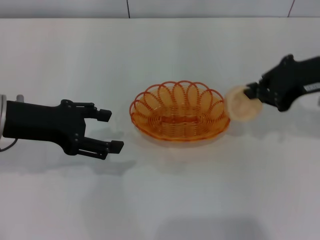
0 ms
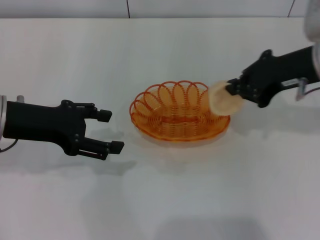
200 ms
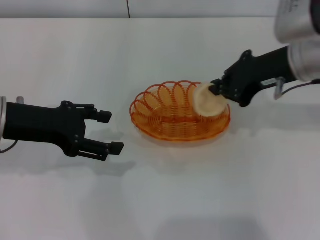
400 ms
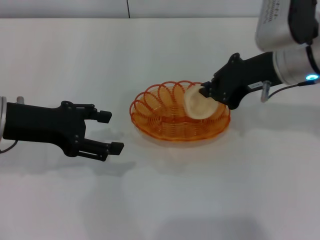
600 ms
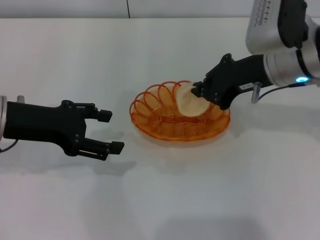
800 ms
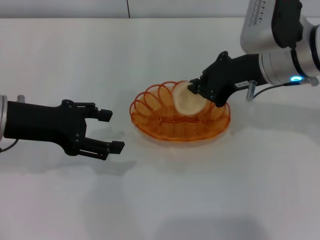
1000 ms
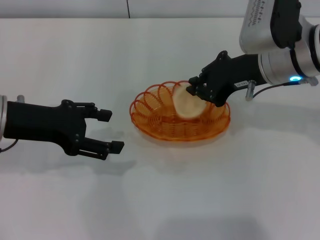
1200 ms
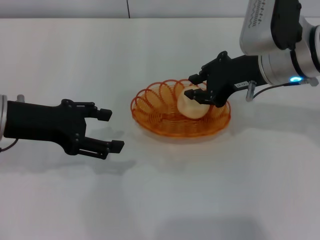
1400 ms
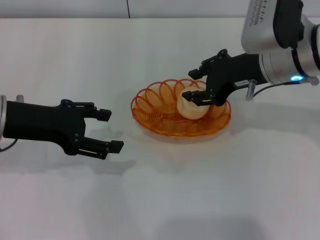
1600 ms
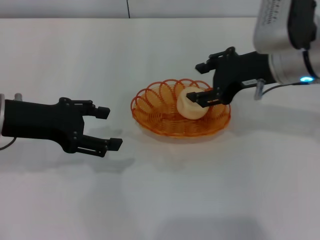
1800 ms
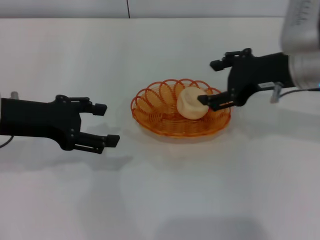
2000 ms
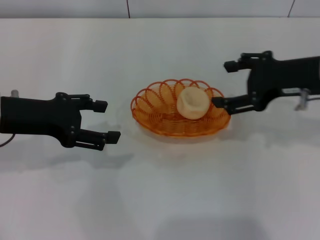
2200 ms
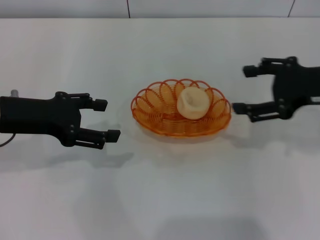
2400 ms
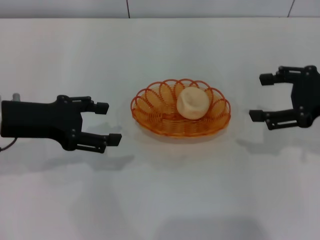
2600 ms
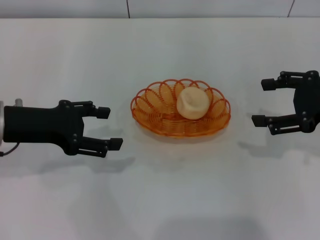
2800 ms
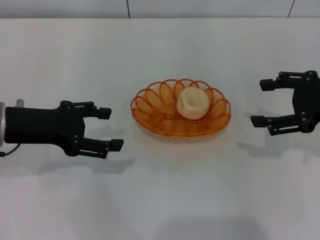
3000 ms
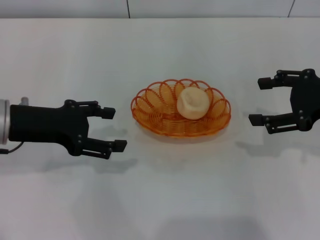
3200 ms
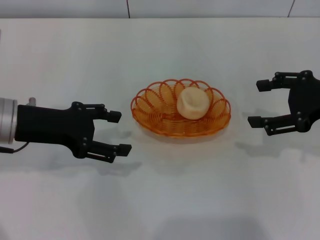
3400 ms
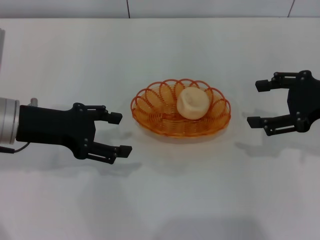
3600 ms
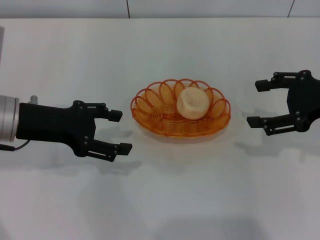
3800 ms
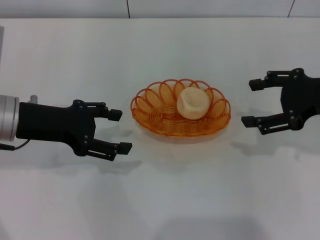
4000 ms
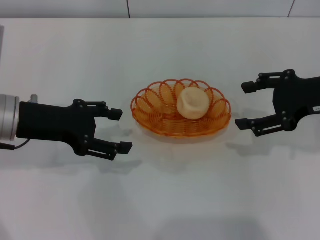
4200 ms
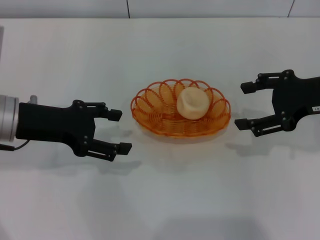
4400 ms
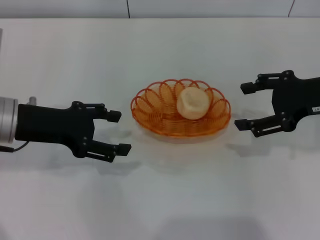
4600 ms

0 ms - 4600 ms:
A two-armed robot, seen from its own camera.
Step, 400 ms - 2000 ms: Place the egg yolk pastry into the basket with the right gripper.
0 ms - 1600 ms: The right gripper moves to the left, about 10 cm.
1600 ms - 3000 ms: The right gripper moves to the right and backward, roughly 15 cm, and opens.
3000 ms - 4600 ms: The grippers move only a little.

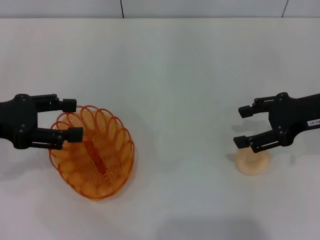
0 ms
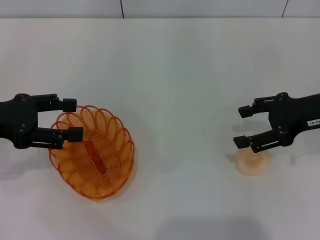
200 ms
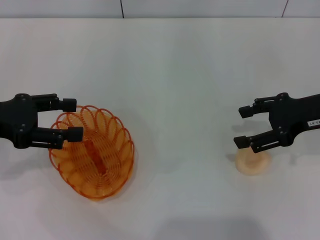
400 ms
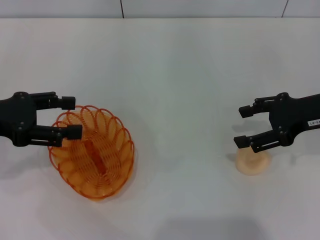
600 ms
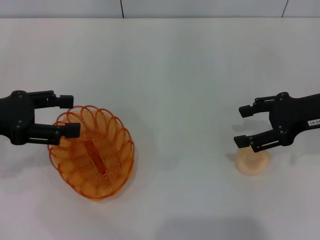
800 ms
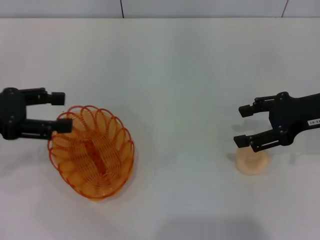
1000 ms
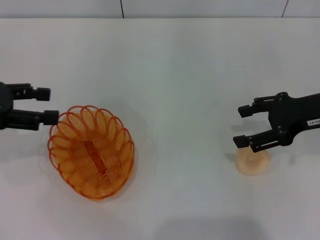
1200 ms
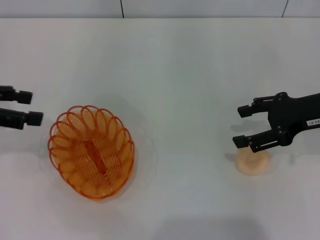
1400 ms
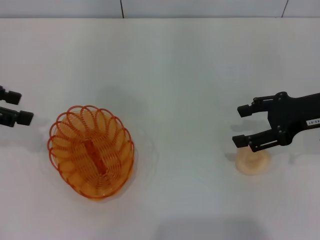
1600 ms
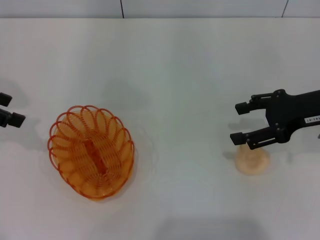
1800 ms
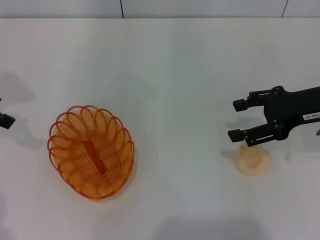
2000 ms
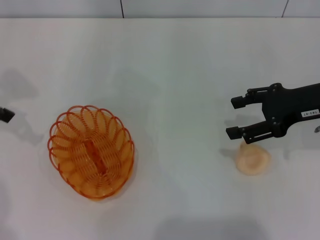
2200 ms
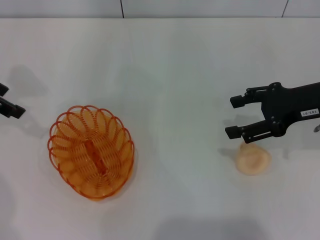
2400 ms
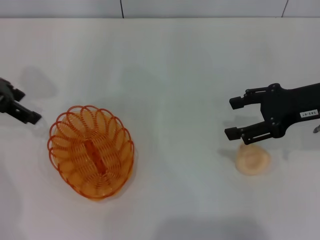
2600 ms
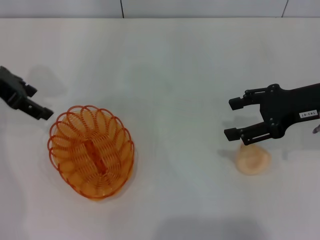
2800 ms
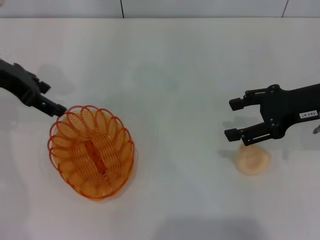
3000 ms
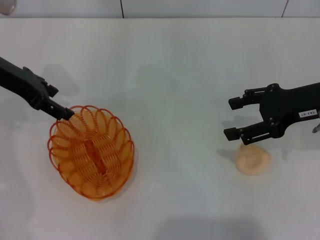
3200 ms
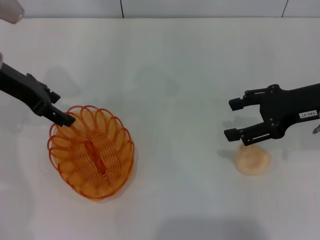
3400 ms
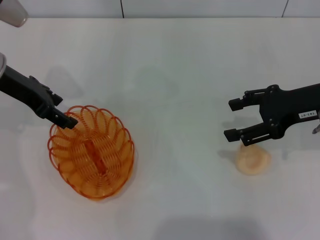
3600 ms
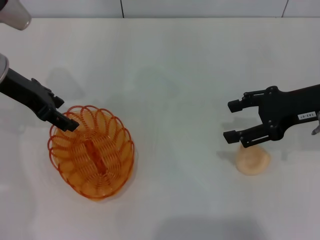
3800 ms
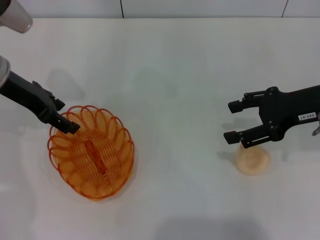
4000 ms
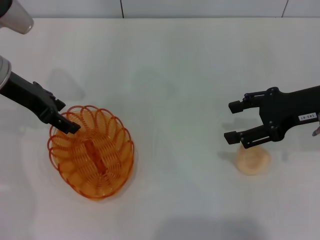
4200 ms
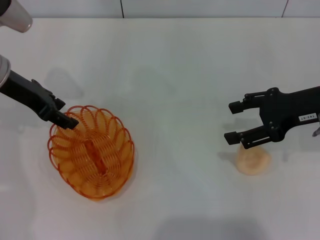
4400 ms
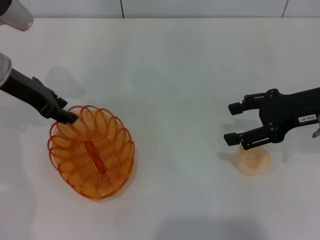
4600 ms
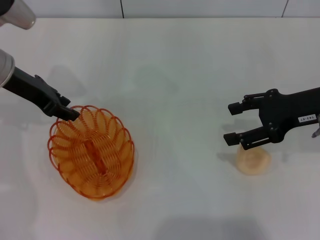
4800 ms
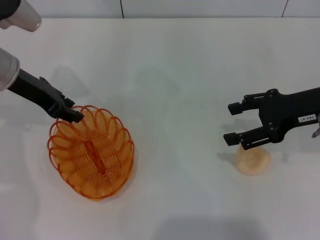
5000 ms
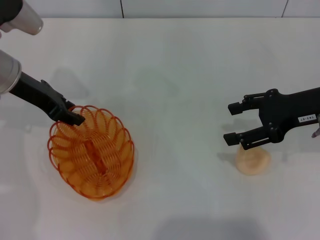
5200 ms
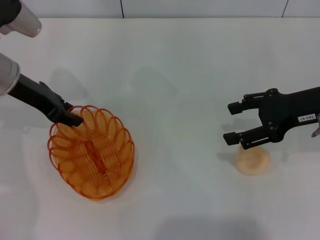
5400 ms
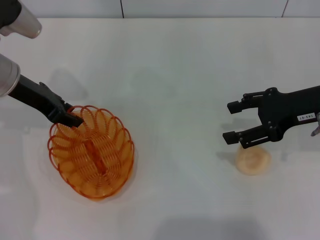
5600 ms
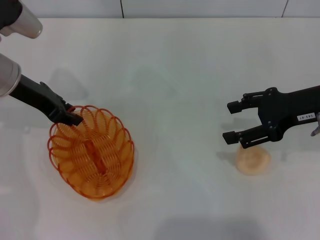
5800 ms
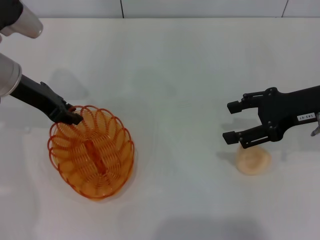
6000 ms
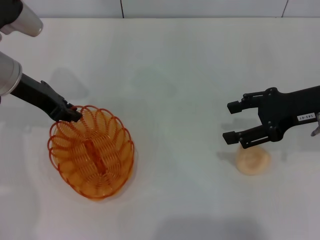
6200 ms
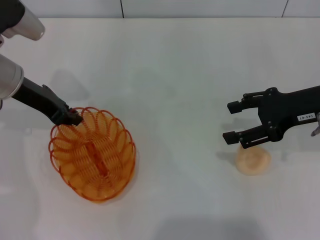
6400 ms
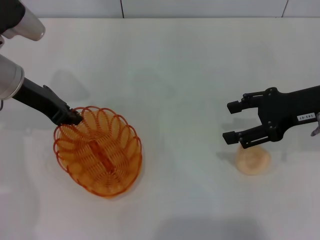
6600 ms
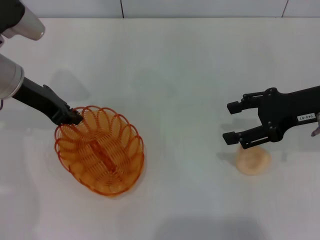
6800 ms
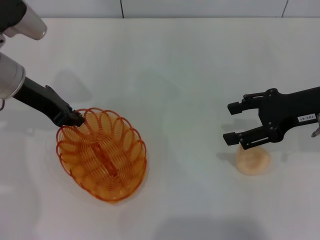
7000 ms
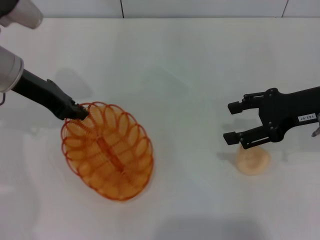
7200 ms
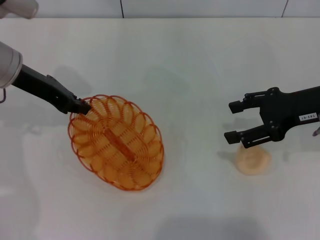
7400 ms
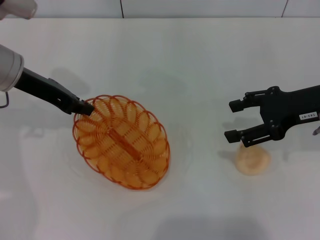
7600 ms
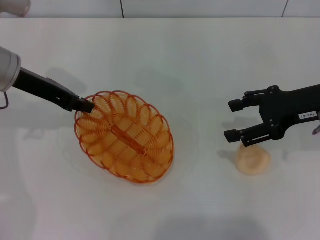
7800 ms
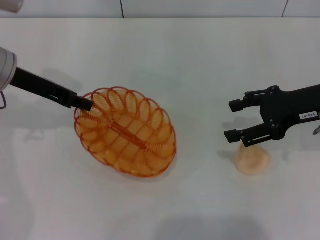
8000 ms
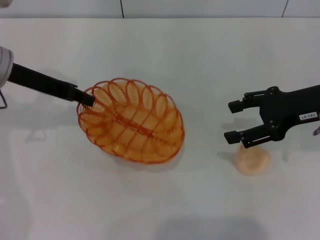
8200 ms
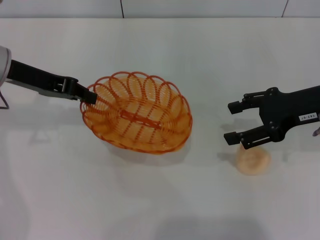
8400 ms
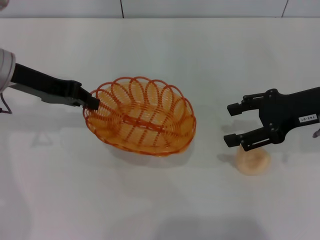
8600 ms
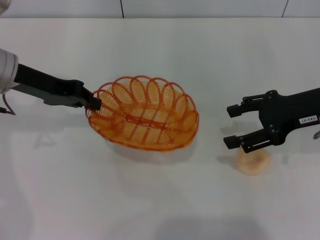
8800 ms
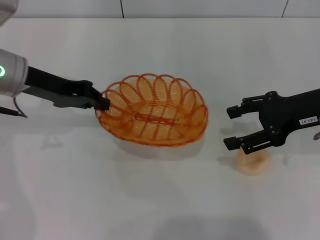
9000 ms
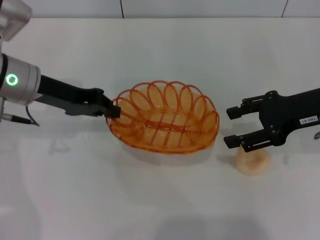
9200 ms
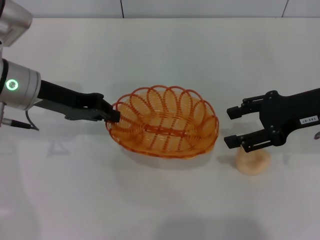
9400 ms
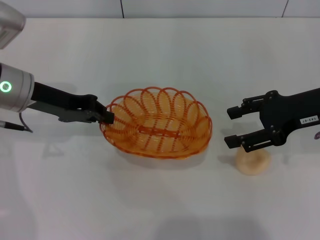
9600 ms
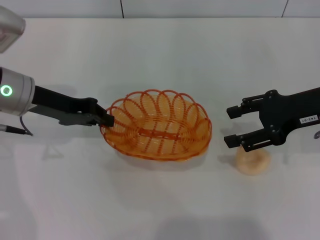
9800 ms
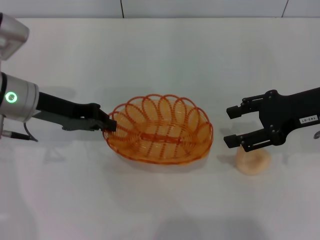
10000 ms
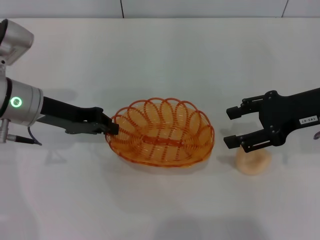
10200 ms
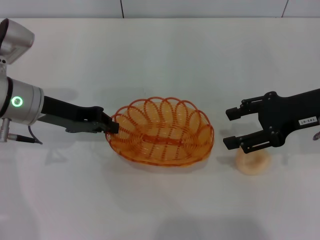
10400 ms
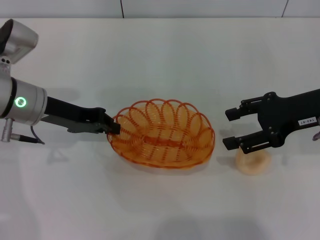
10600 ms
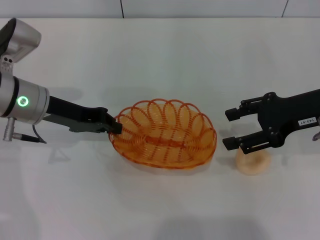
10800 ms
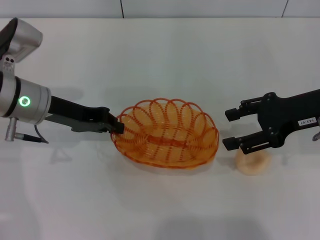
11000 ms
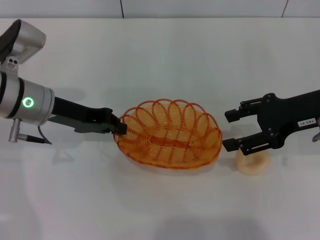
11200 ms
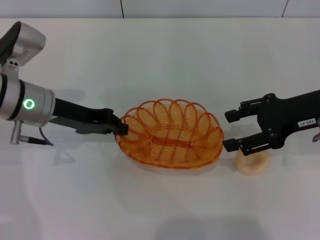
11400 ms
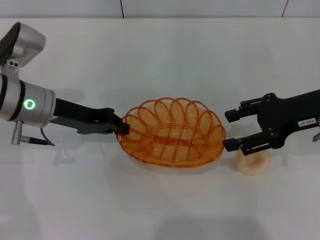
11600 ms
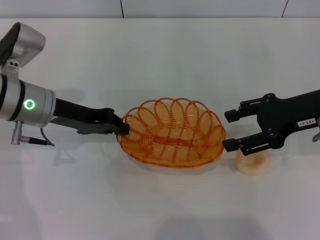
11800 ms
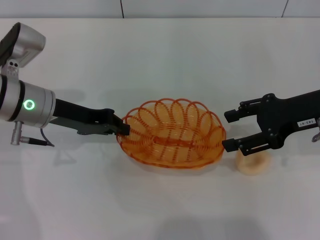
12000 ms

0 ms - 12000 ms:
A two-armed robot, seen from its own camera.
Step, 0 ms - 7400 ms: Pick up the basket with the left gripper.
0 ms - 1600 ms: The left gripper shifts by roughly 10 cm.
1600 ms - 3000 ms: The left gripper moves to the right and forward, roughly 10 cm.
3000 ms - 4400 ms: The grippers move only a little.
4400 ms - 6000 ms: The left gripper closes.
6000 ms - 7600 ms: The grippers stay close to where they were, moving slightly.
9000 ms - 12000 ms: The grippers stay close to where they were, moving slightly.

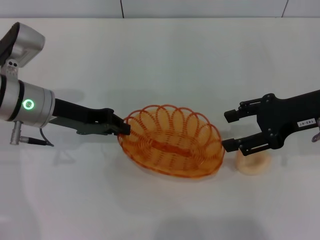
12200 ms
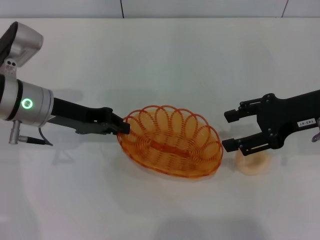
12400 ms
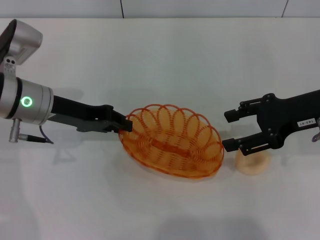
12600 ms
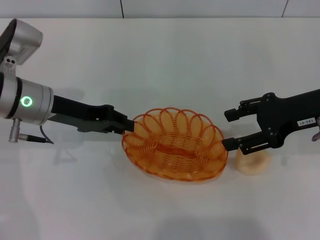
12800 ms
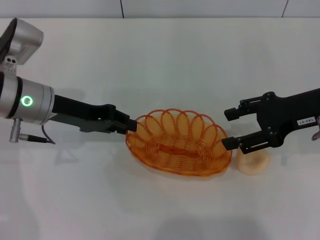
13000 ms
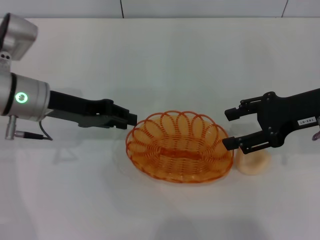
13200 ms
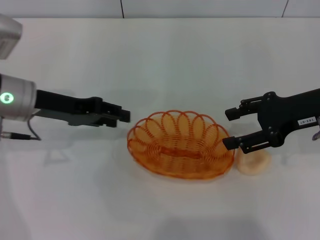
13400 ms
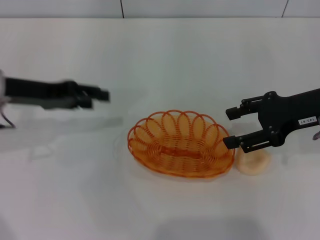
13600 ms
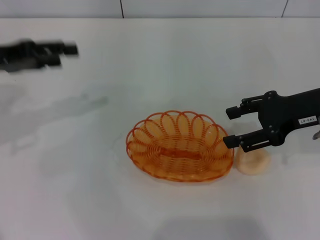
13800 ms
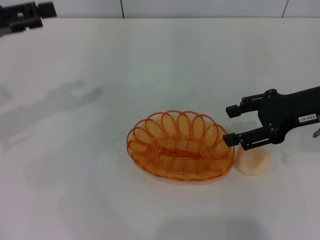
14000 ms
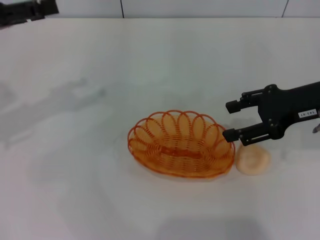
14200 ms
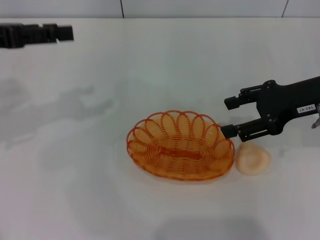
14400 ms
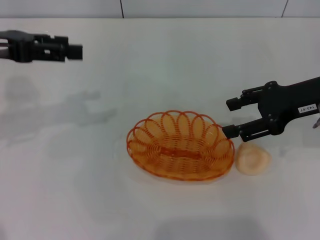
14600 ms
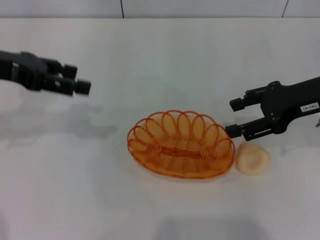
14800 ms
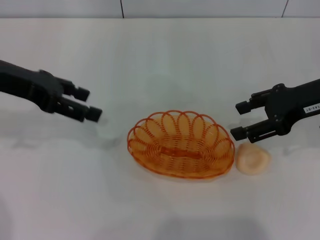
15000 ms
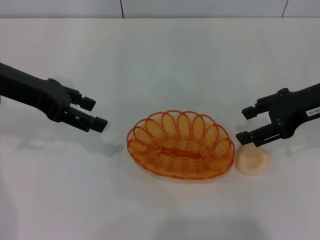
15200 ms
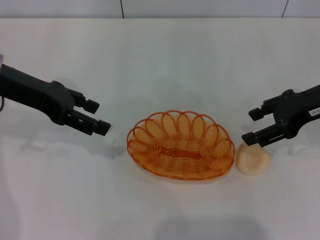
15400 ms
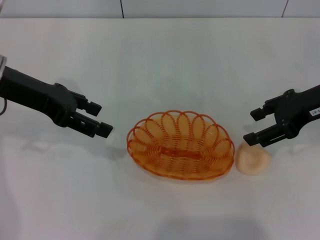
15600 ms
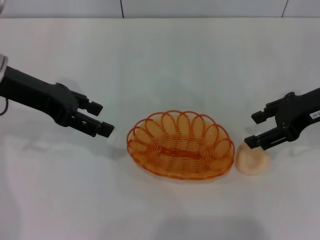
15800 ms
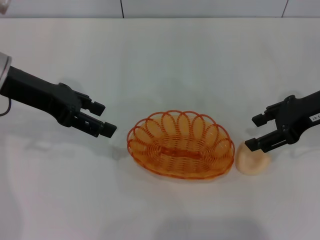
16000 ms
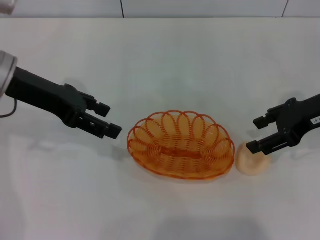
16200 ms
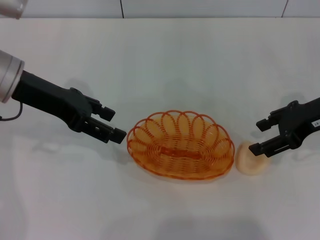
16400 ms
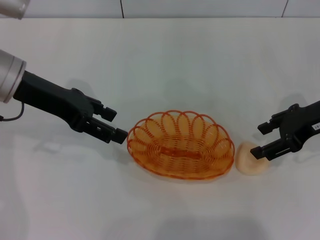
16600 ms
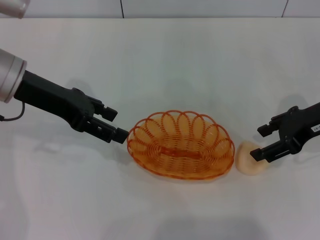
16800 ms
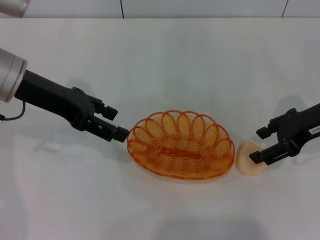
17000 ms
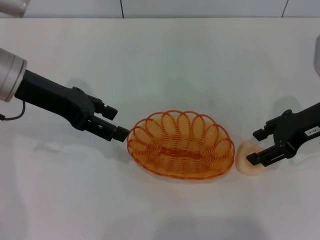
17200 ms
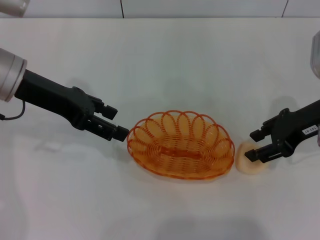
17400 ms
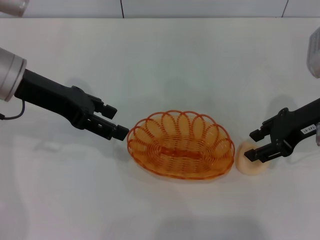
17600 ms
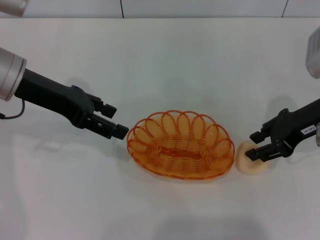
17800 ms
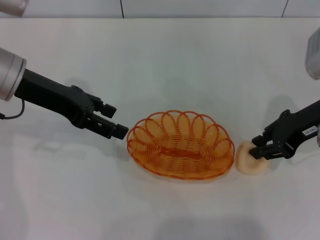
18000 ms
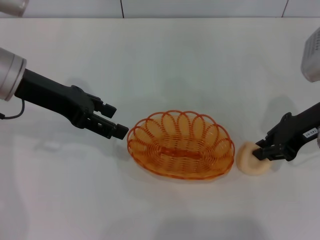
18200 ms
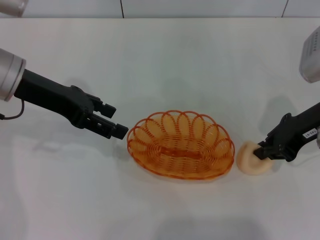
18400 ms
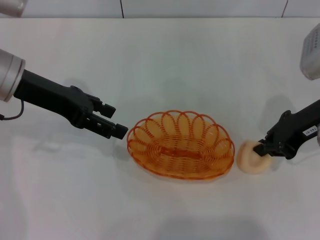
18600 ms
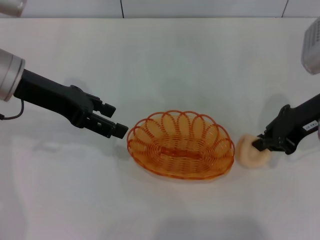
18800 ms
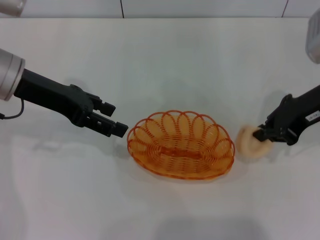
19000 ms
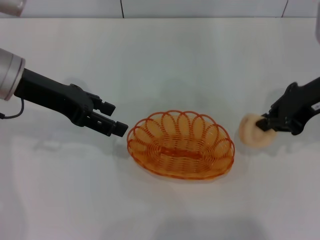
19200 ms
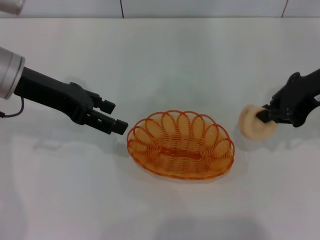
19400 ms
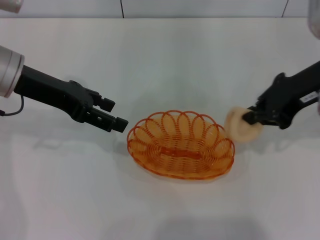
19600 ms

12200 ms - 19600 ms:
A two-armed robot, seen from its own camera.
Step, 13600 ms - 19000 ms: Pick up the egg yolk pastry with the right gripper.
12200 ms - 13600 ms: The left gripper heads to the left, covering about 5 cm, and opens.
13600 ms - 15200 ms: The left gripper opens its fingers.
15200 ms - 16600 ms: The grippers stay close to where they were, moving slightly.
16600 ms - 18200 ms: The right gripper closes up.
18200 ms - 19600 ms: The right gripper heads upward, covering some 5 cm.
